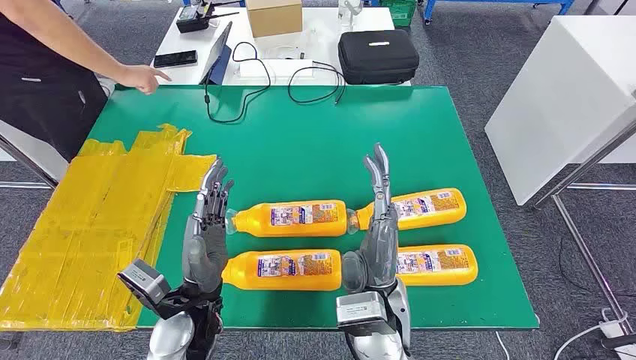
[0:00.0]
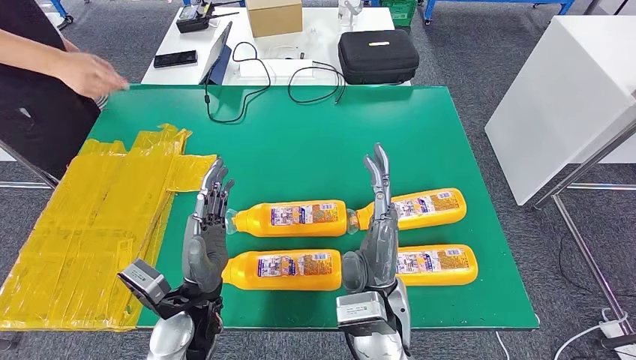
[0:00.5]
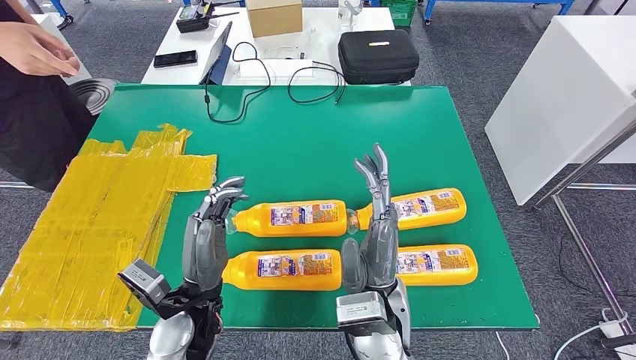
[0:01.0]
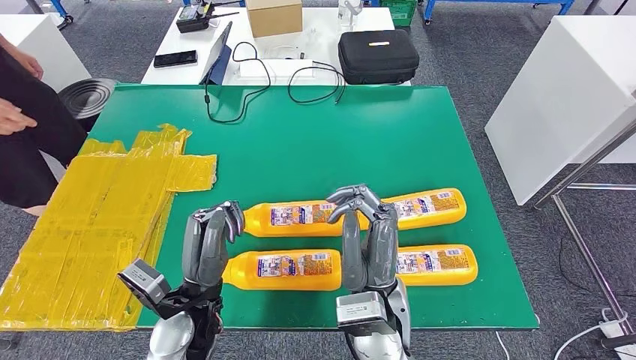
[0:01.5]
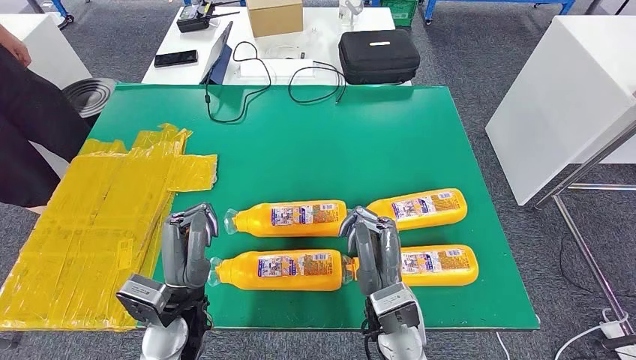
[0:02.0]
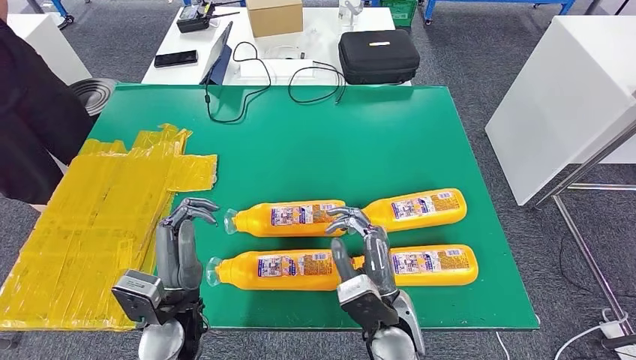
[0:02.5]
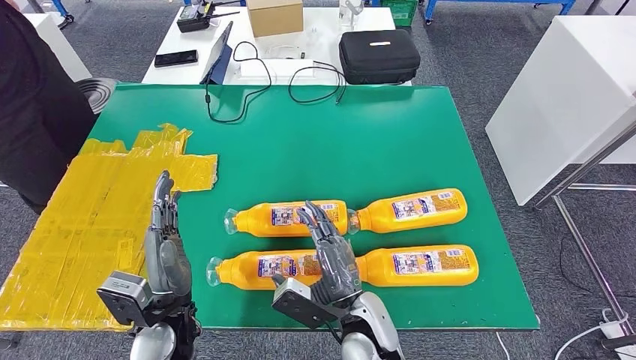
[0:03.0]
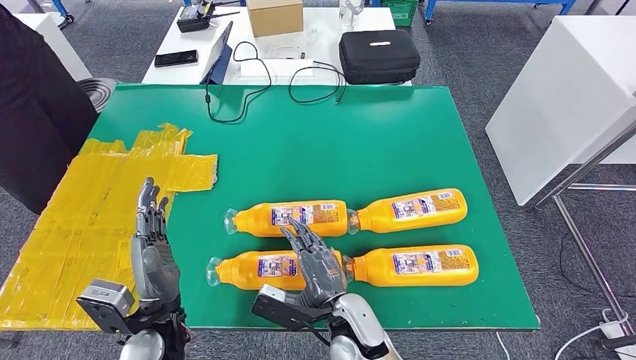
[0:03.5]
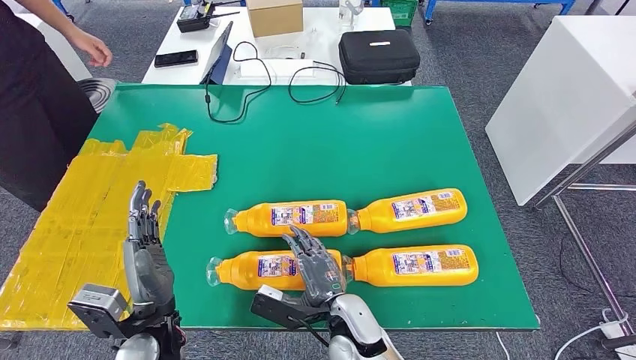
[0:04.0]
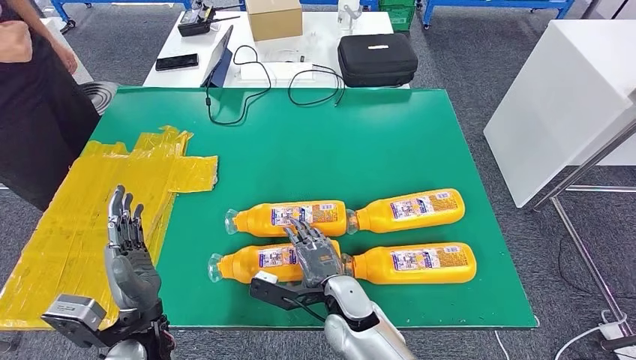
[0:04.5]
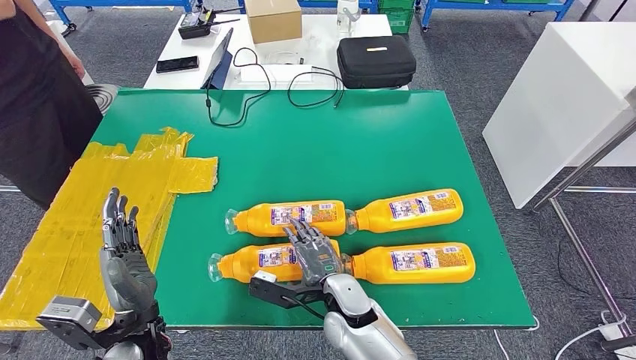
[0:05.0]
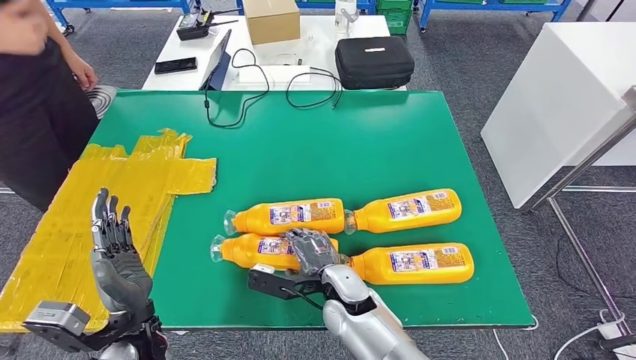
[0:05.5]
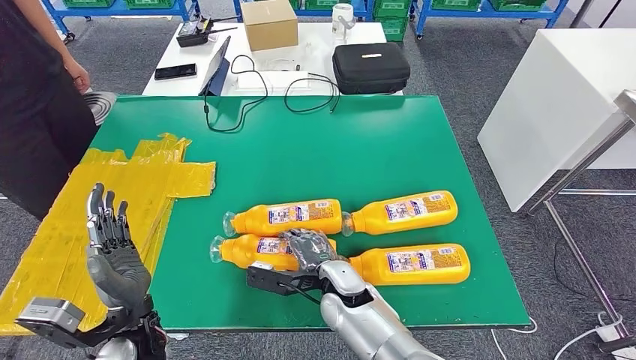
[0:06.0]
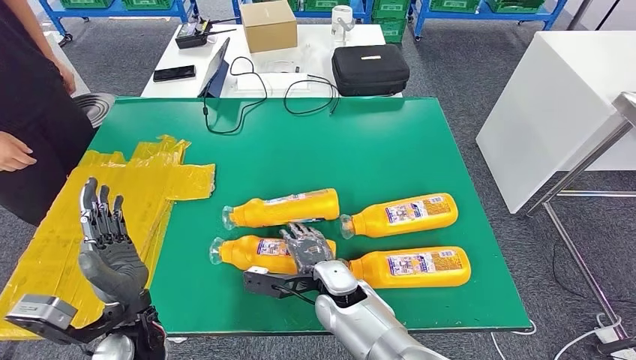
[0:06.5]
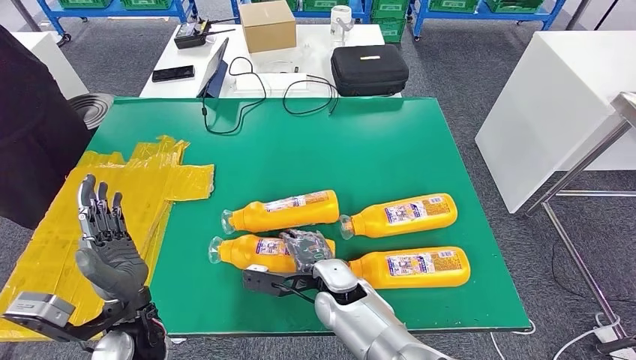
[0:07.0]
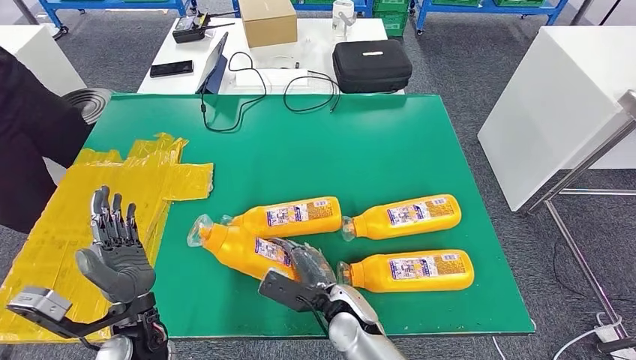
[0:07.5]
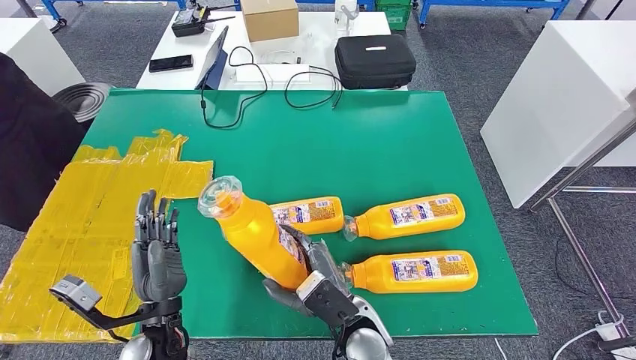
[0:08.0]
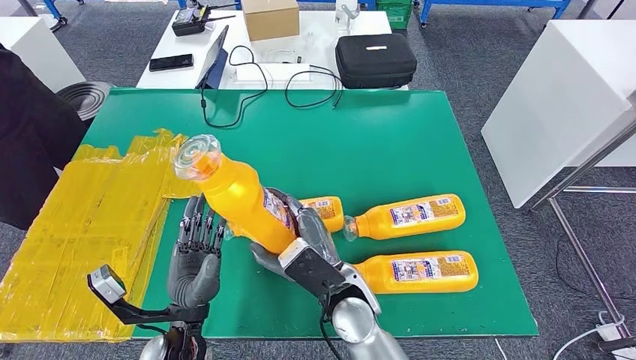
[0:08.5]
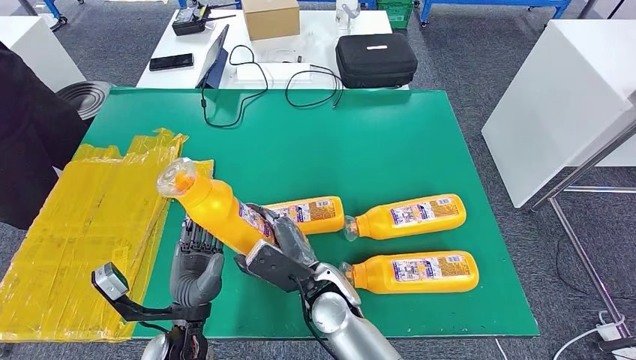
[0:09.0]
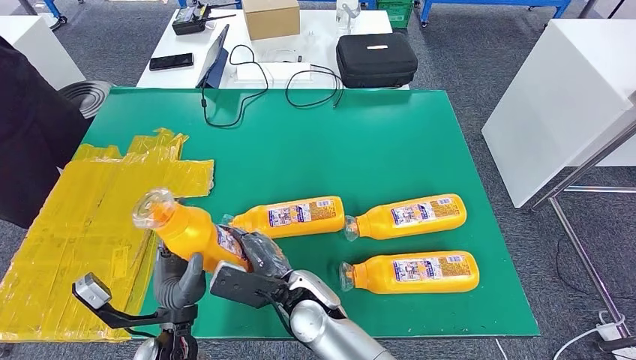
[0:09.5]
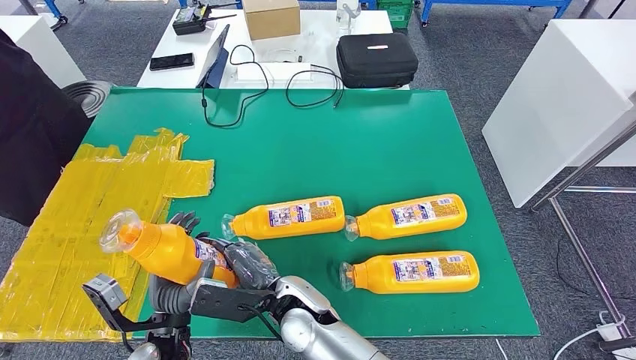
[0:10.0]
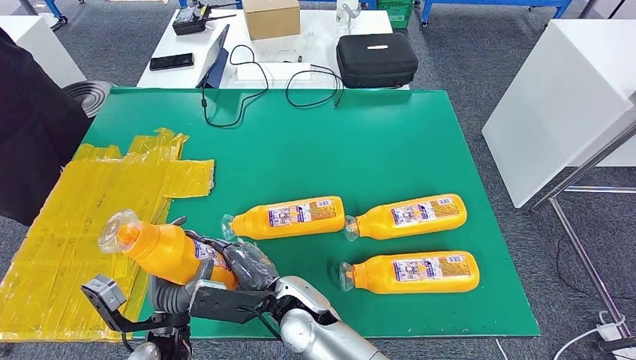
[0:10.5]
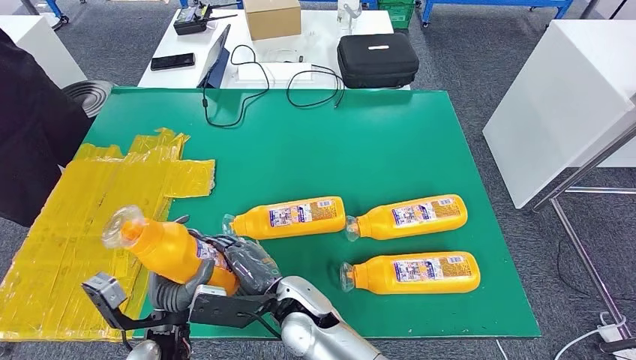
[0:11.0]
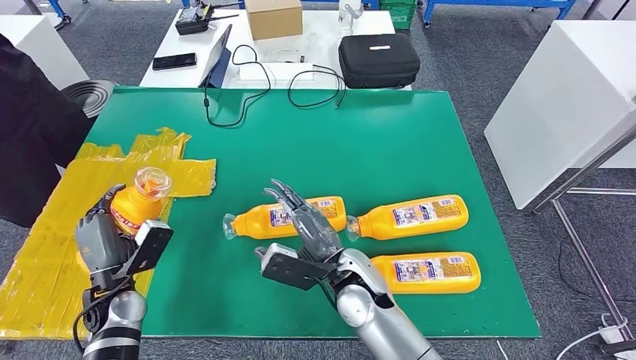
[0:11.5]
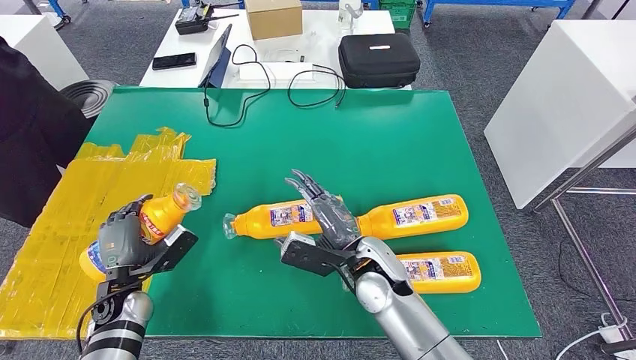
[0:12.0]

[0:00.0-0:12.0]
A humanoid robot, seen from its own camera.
Step, 0:00.0 to 0:09.0: Take the bottle from the table.
0:02.0 to 0:04.0: The right hand travels downward and to the left by roughly 10 cm.
0:08.0 to 0:10.0: The right hand travels to the left by roughly 10 cm.

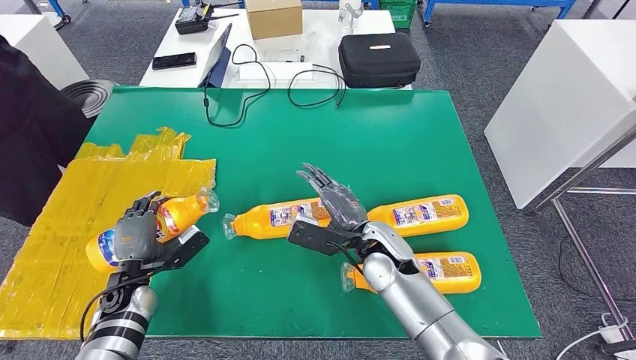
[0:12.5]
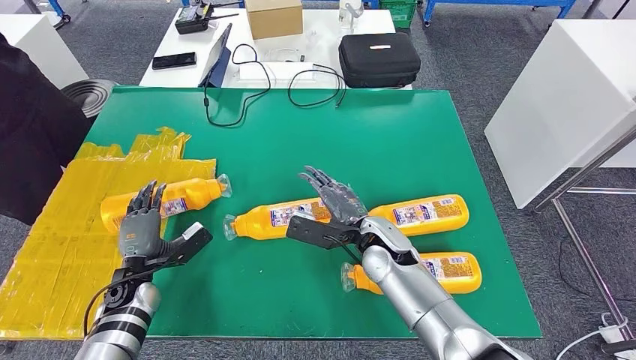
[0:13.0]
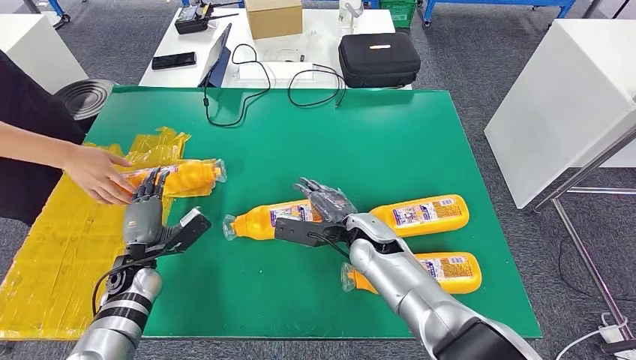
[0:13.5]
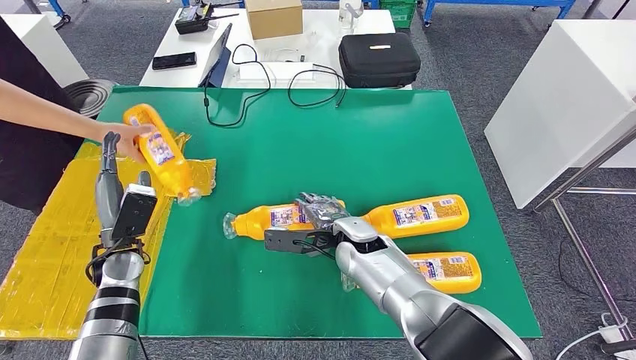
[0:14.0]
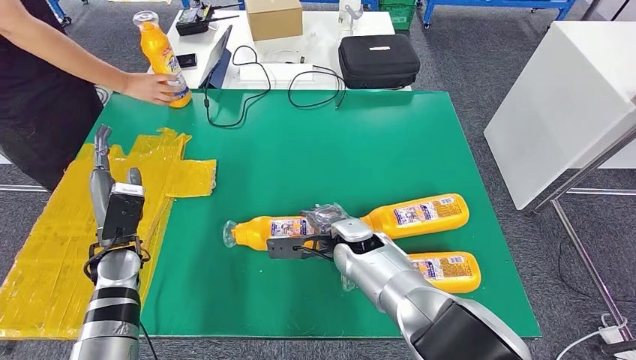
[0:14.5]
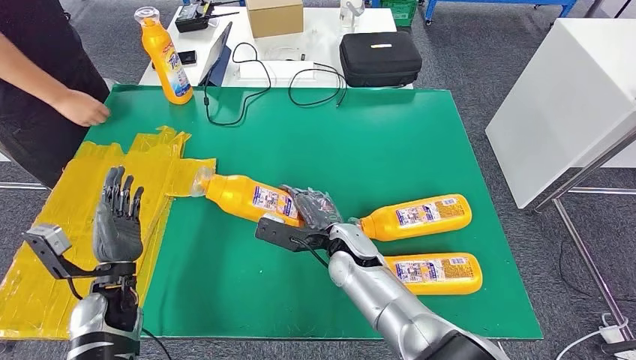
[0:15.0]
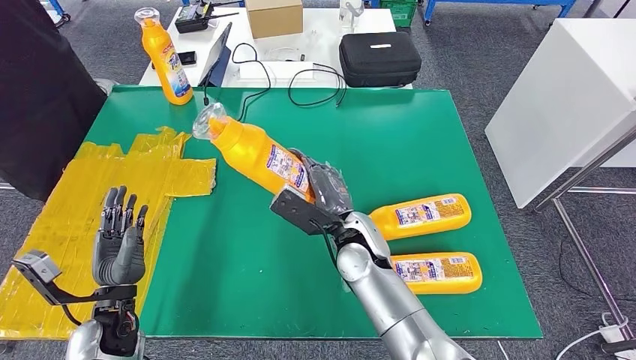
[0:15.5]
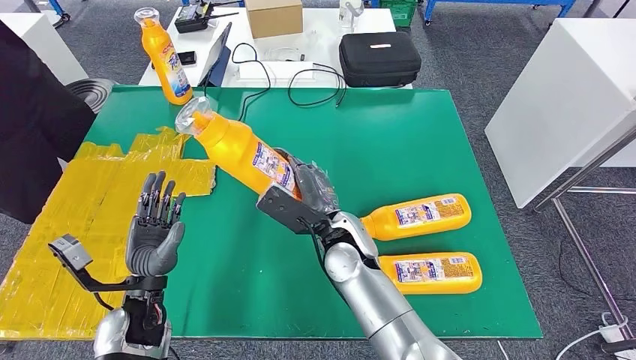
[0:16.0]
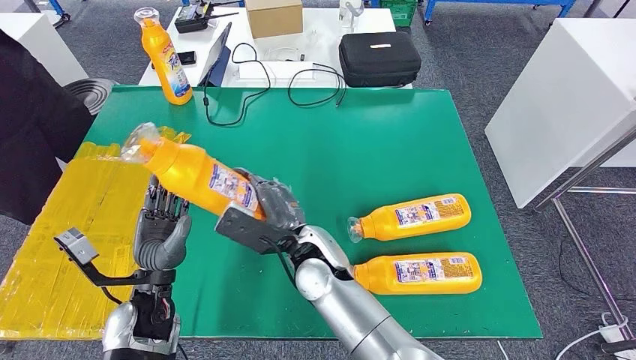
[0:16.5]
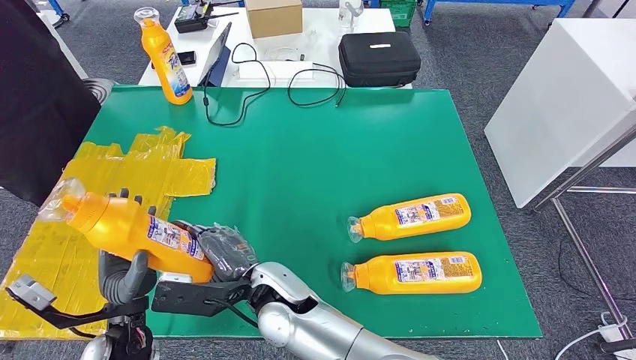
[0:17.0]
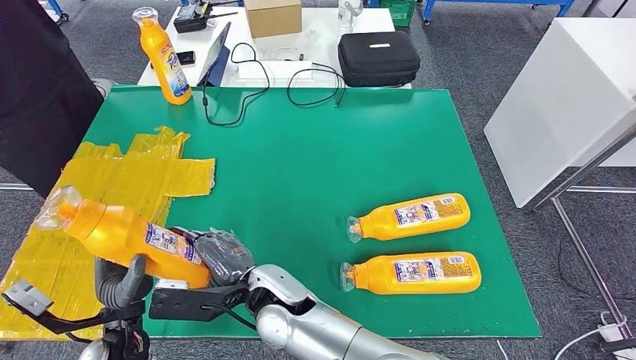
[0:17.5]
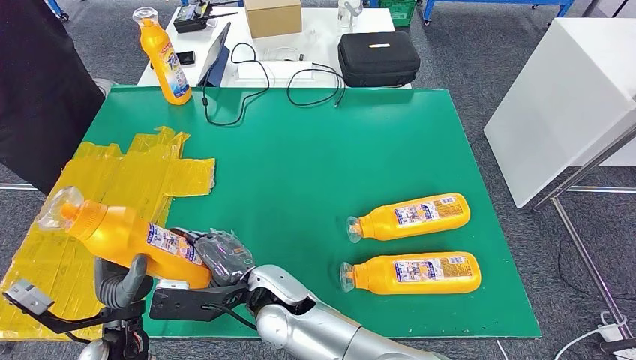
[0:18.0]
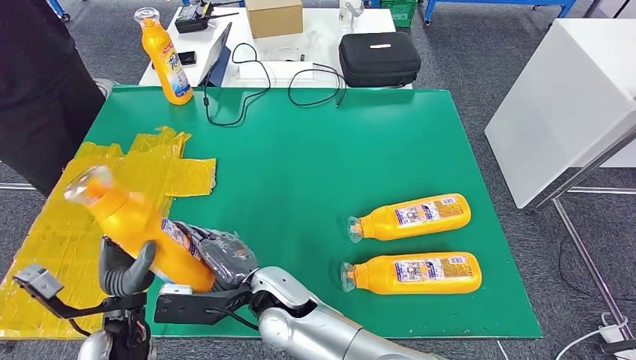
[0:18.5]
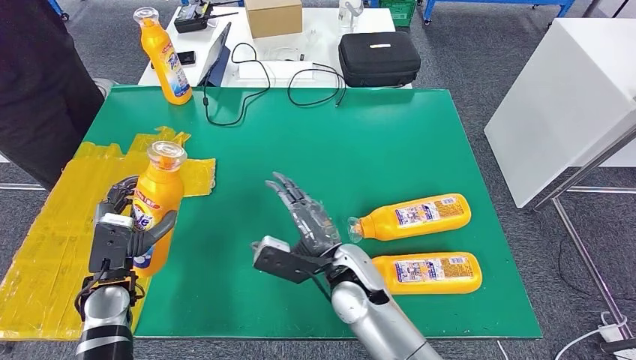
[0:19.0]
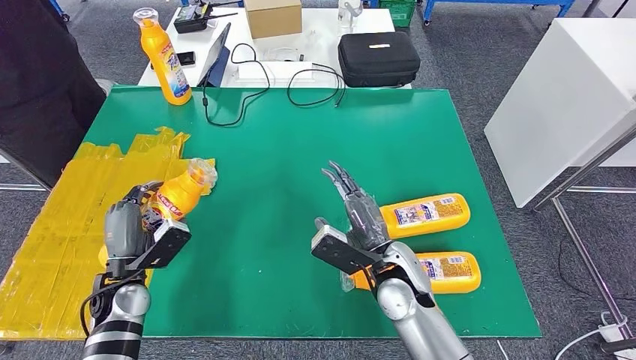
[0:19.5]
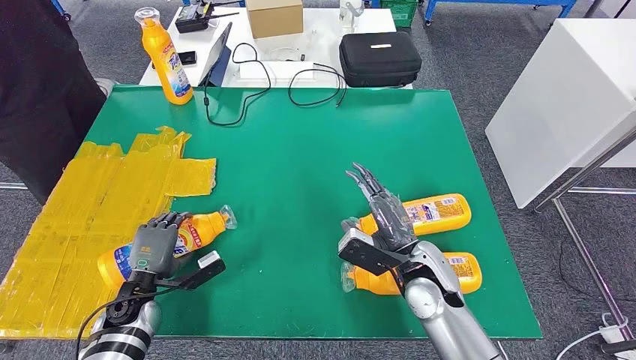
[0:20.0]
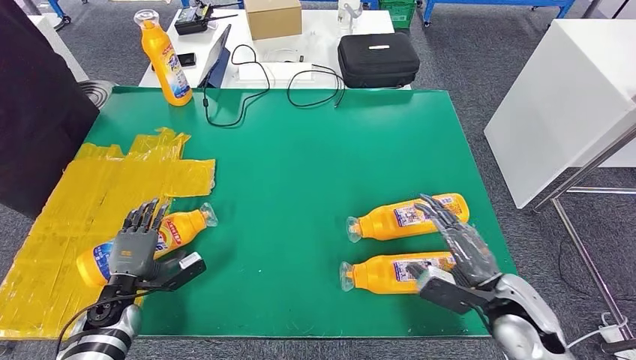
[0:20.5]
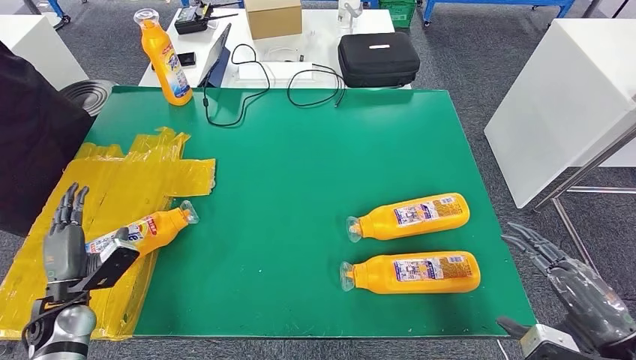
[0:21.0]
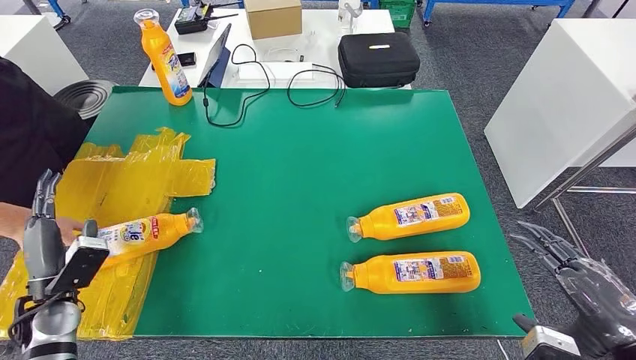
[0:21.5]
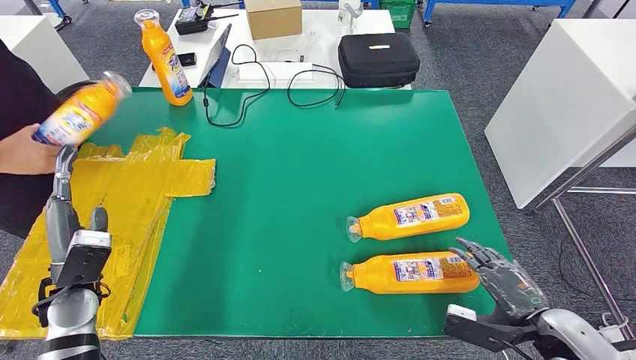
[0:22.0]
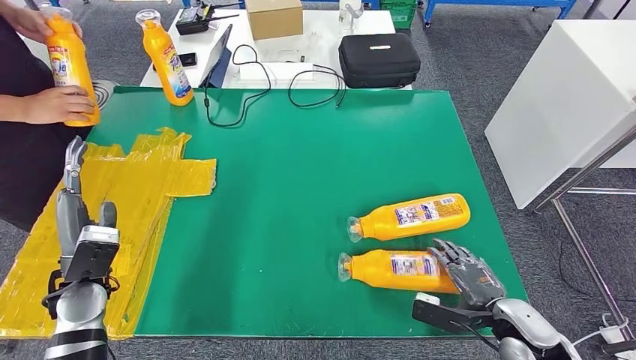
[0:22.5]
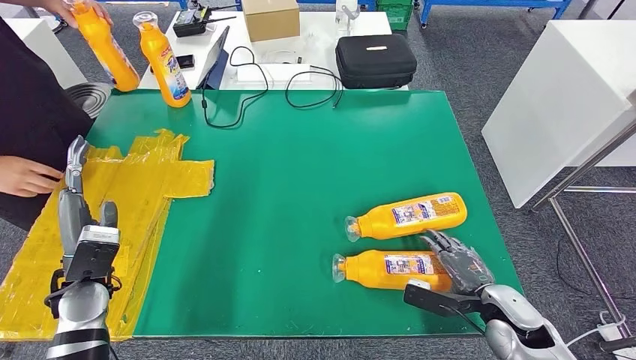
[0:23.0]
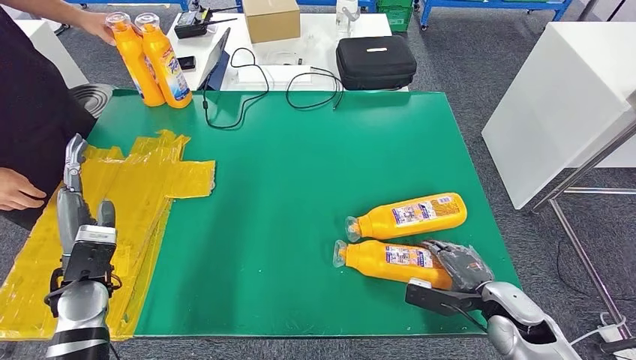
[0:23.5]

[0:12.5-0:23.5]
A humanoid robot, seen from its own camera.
Step, 0:13.5 to 0:16.5: Pick up the bottle from the table.
Step, 0:17.0 to 0:20.0: Flip the bottle to face forward.
0:18.0 to 0:20.0: The left hand travels forward and downward by about 10 cm; the right hand moves to the right, roughly 25 cm.
